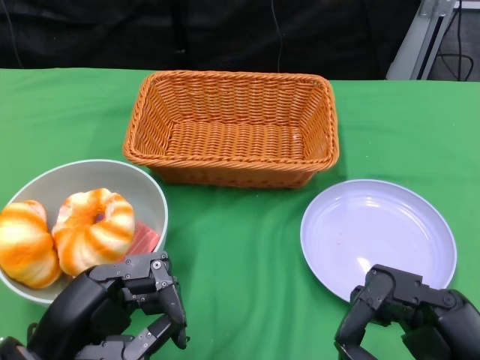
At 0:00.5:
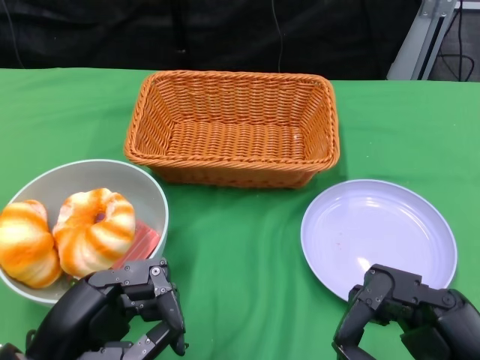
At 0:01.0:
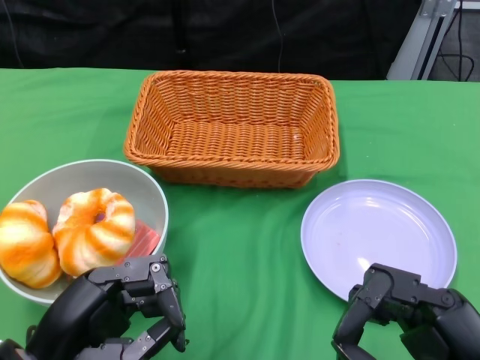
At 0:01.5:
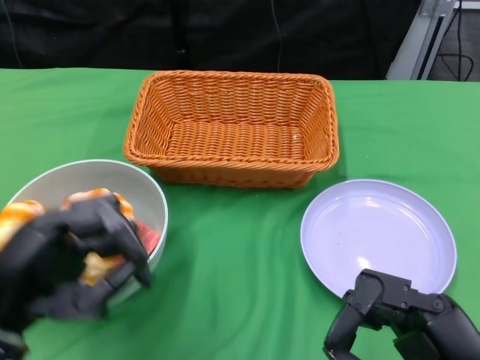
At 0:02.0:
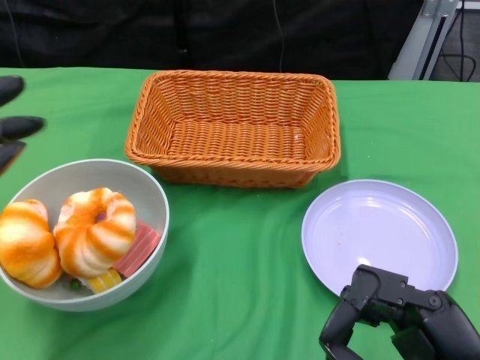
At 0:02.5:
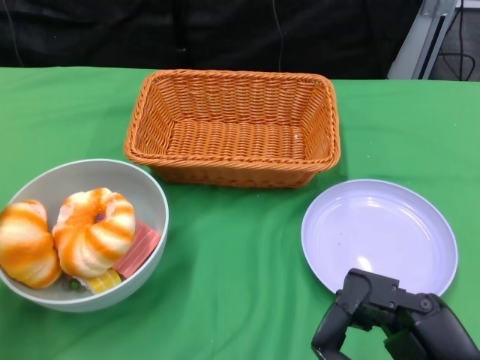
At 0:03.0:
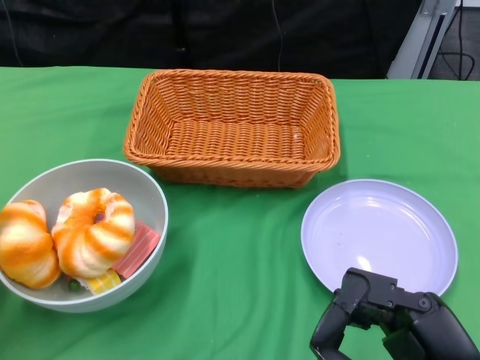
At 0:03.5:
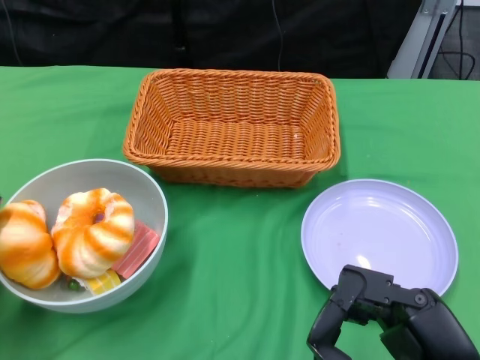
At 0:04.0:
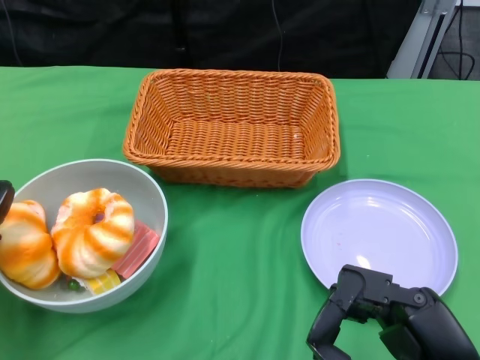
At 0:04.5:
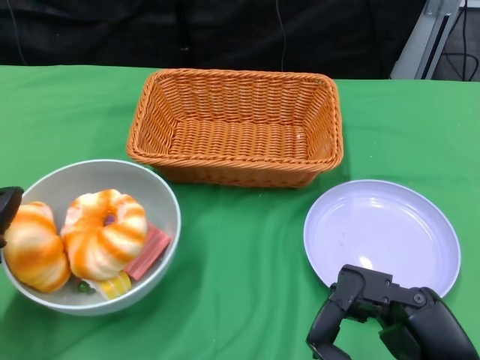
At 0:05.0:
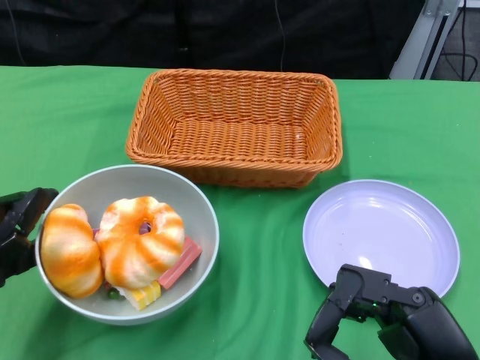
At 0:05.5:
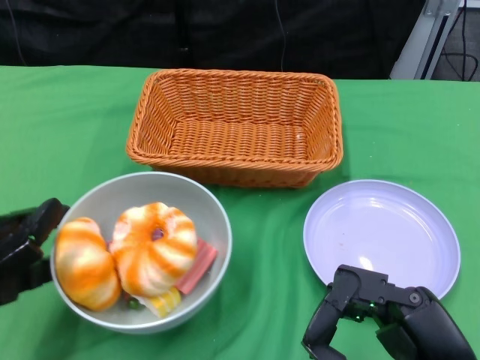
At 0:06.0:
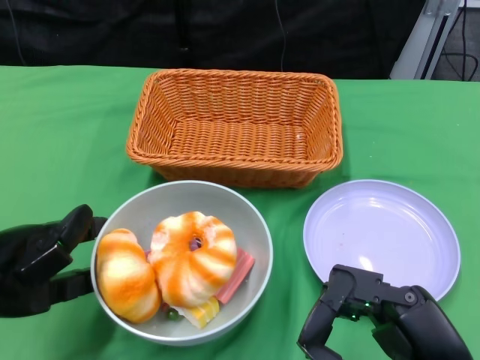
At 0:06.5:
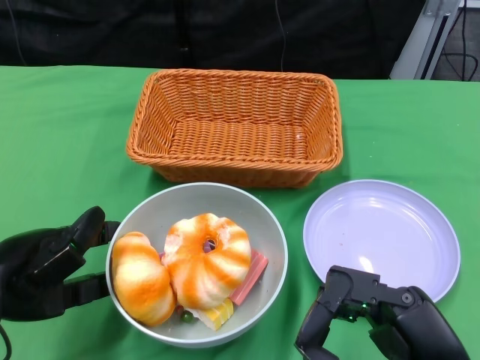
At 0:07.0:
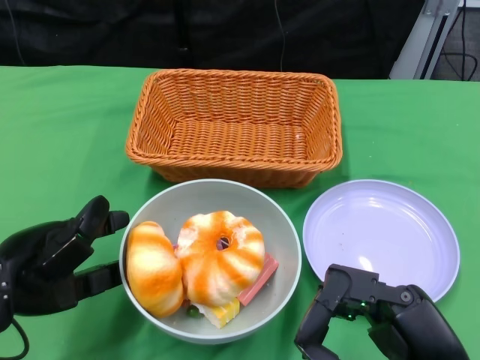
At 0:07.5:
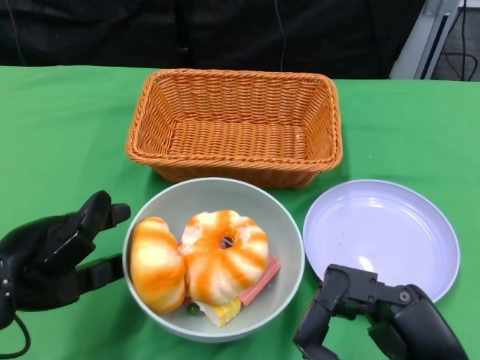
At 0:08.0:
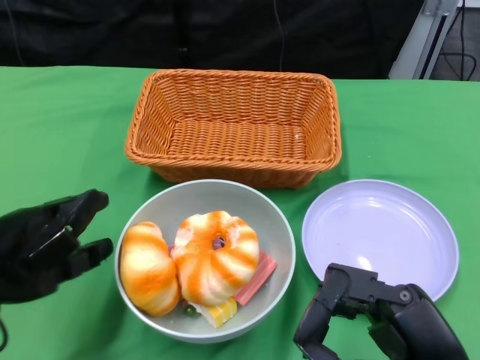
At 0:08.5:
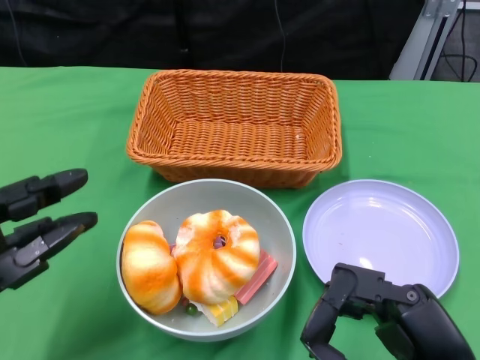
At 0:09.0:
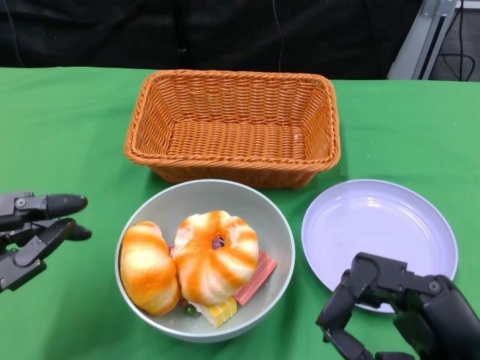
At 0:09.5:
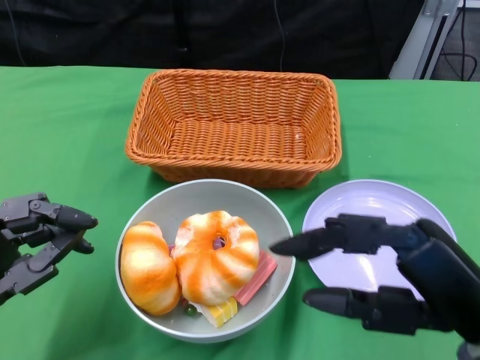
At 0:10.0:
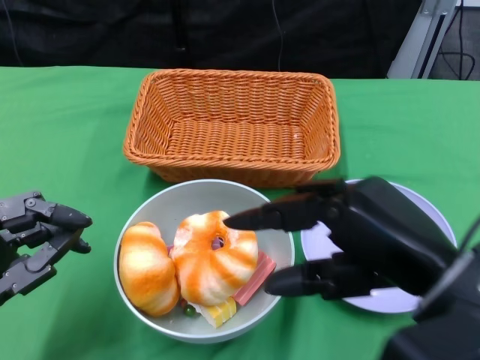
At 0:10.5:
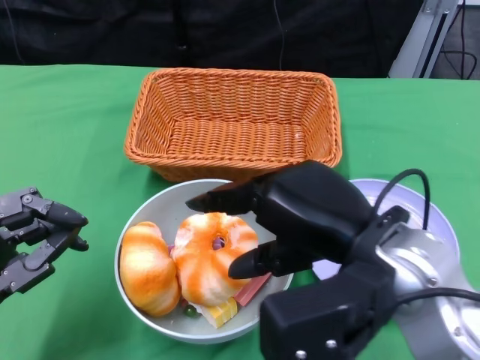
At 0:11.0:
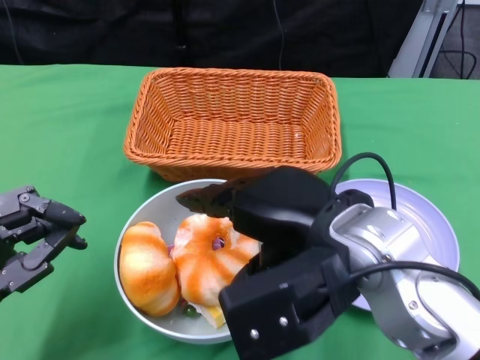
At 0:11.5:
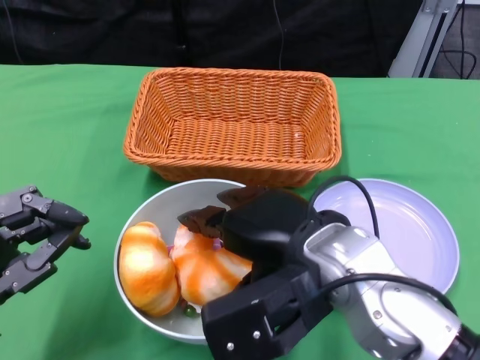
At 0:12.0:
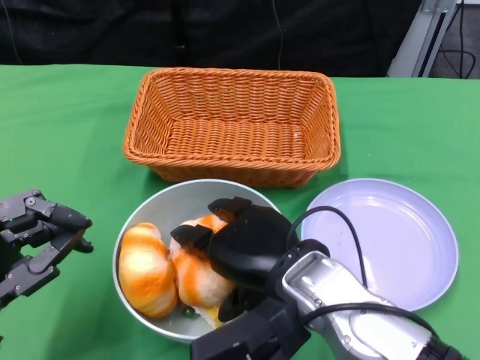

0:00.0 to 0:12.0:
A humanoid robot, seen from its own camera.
Step, 0:00.0 to 0:08.0: Push the bowl to the center of the table using the left gripper.
0:02.0 to 0:04.0: The left hand travels forward and downward by some 10 cm.
0:04.0 to 0:06.0: The left hand goes about 5 cm to the right.
0:06.0 to 0:08.0: The hands stay close to where they were, moving slightly.
0:08.0 to 0:10.0: The left hand is displaced downward by some 5 cm, while the right hand is displaced upward and forward by approximately 10 cm.
0:10.0 to 0:12.0: The right hand shifts roughly 15 cm to the left and downward.

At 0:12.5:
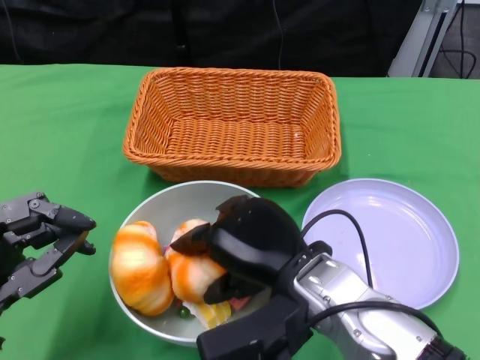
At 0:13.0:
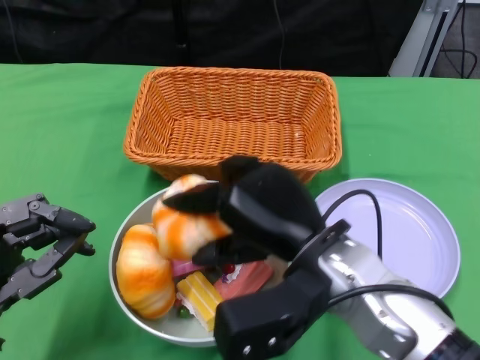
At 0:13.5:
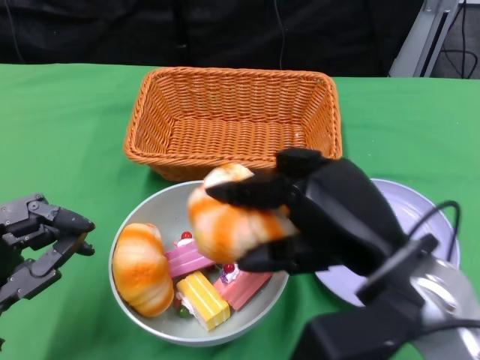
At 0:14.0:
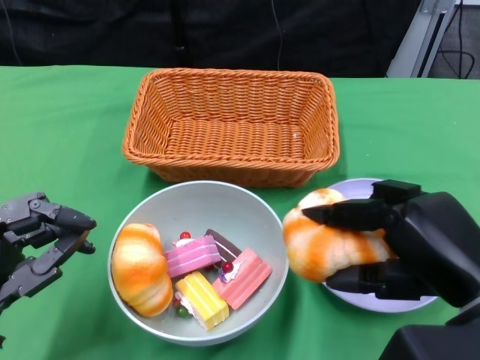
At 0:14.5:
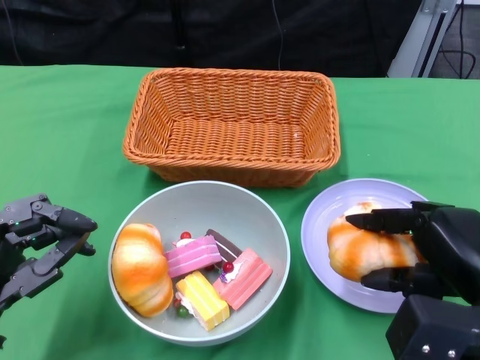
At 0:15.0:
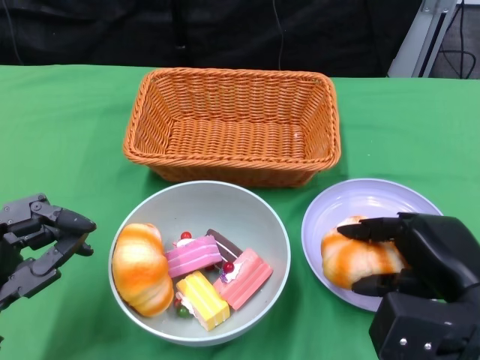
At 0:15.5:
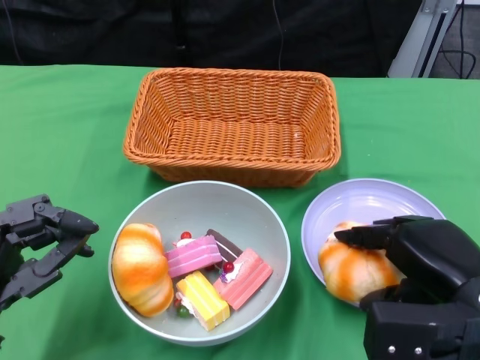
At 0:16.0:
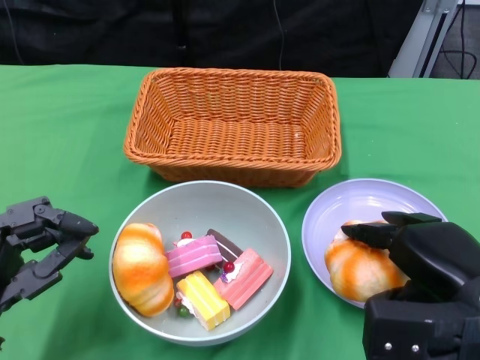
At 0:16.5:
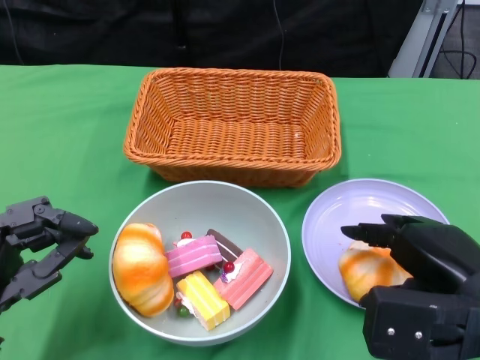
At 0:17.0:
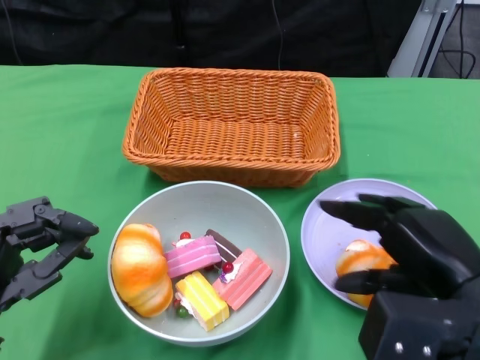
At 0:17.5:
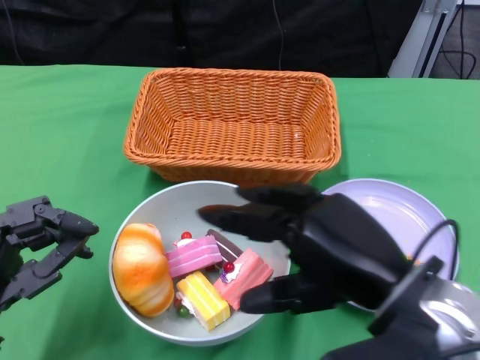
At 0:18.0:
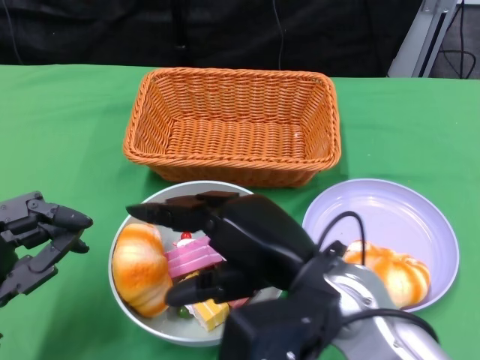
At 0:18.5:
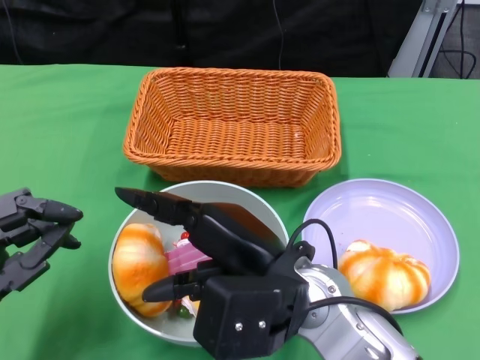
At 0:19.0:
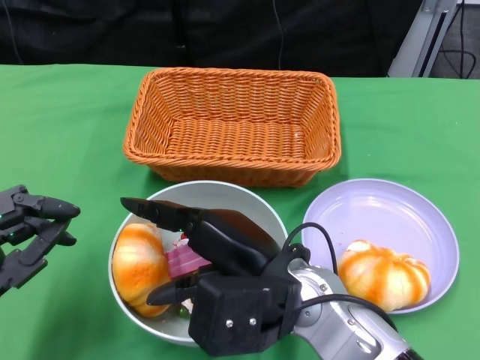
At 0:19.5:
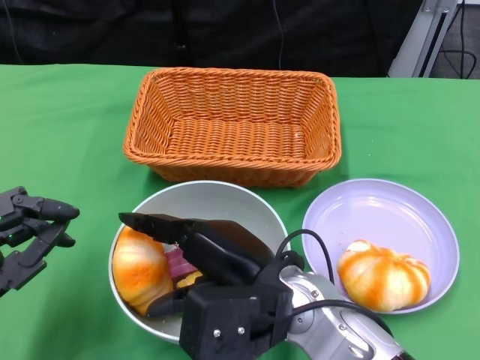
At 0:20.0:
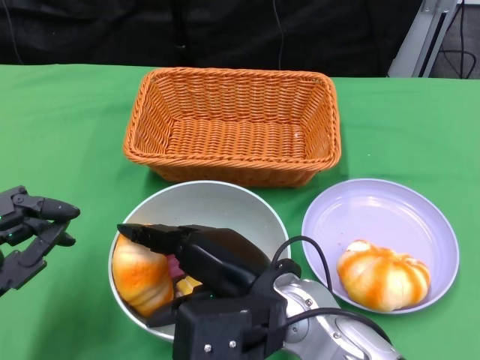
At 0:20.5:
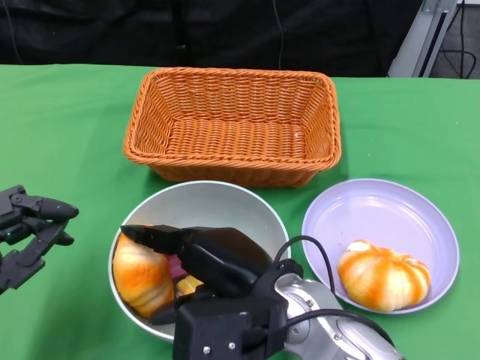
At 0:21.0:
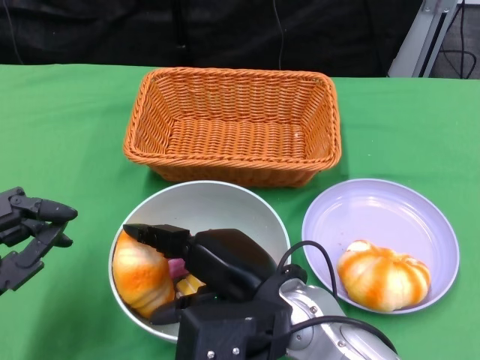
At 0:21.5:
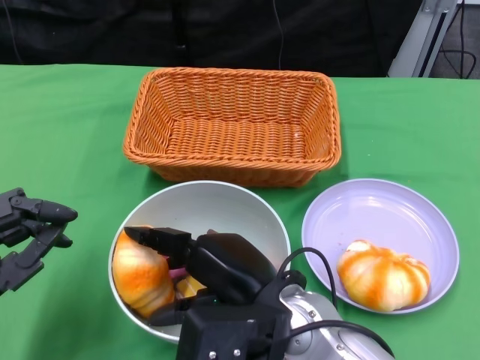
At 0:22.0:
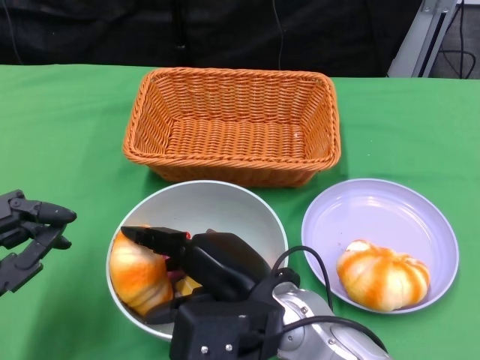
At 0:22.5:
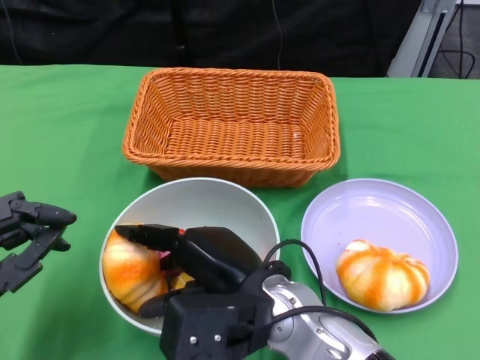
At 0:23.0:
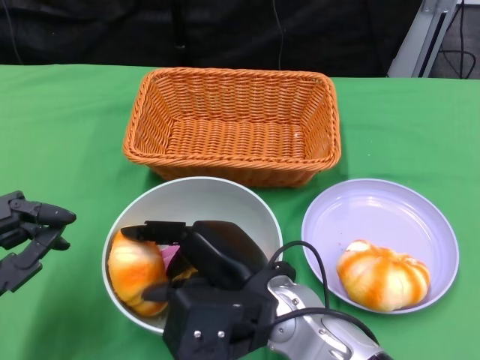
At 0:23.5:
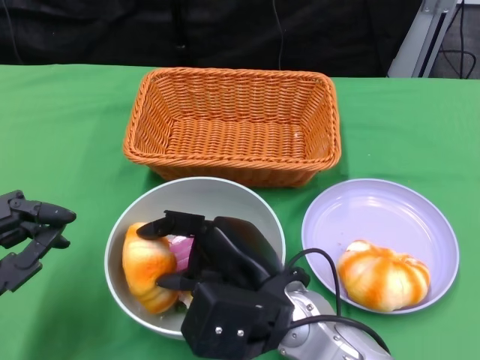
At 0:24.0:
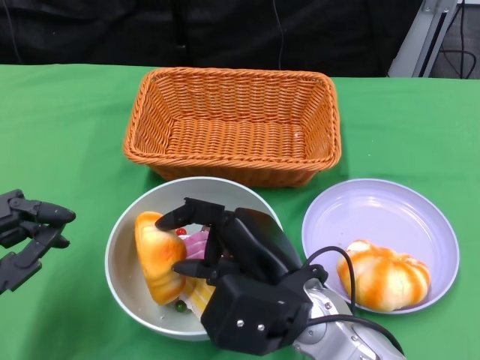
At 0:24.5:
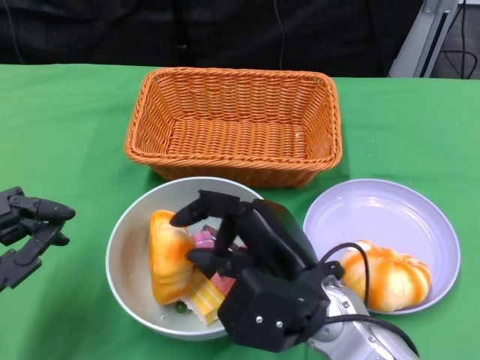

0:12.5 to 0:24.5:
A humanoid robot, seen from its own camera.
Step, 0:12.5 to 0:16.5: Pick up the bread with the right gripper and place it on the plate.
0:12.5 to 0:14.5: The right hand goes some 15 cm to the right.
0:16.5 to 0:18.5: The right hand shifts some 15 cm to the left.
0:18.5 to 0:22.5: The hands make only small movements.

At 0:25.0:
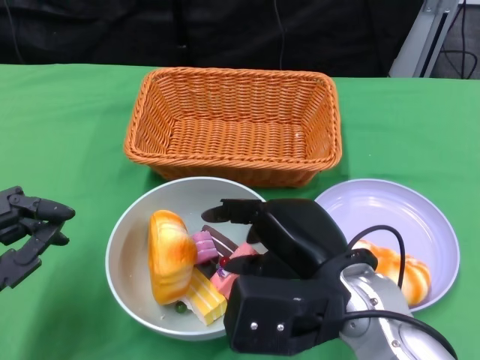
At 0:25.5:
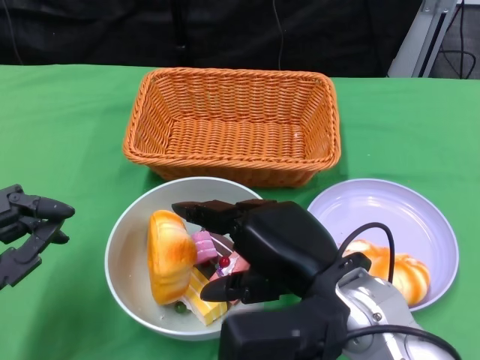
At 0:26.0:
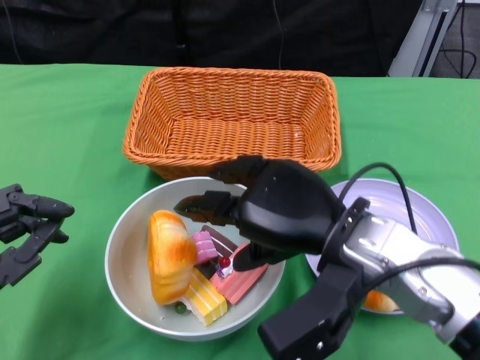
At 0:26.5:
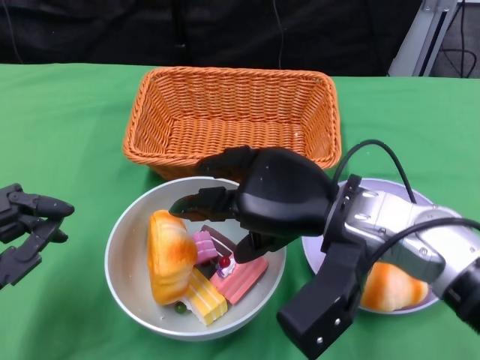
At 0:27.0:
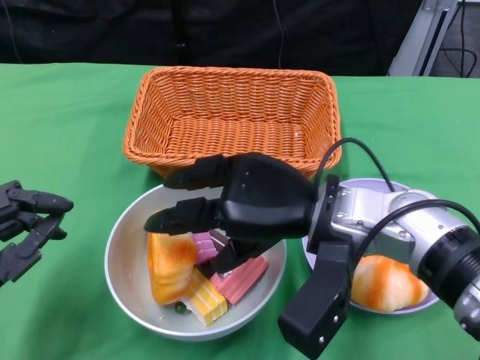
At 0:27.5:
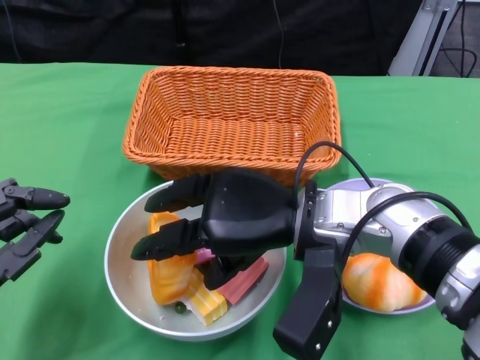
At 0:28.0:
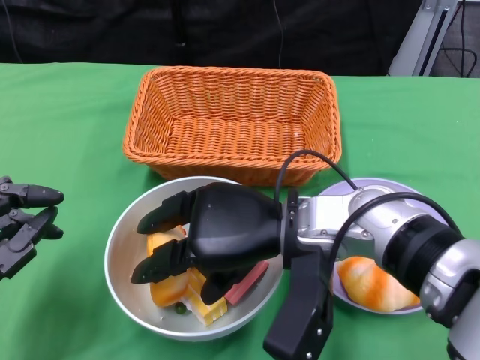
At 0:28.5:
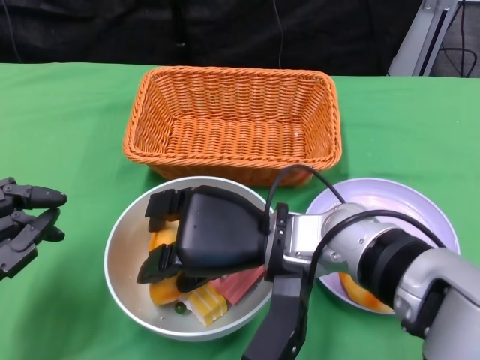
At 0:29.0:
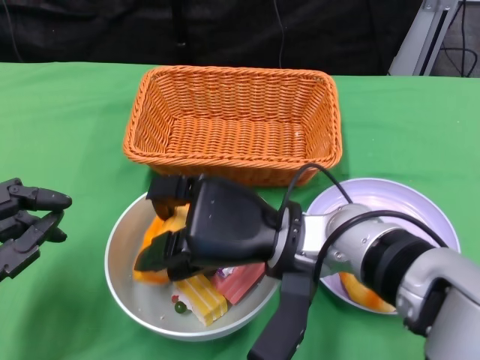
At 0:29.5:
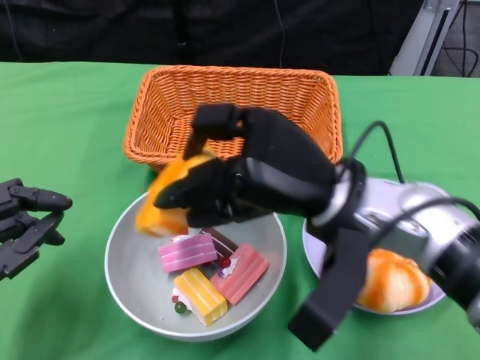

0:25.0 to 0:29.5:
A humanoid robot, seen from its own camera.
0:25.0 to 0:27.0: The right hand moves forward, some 5 cm.
